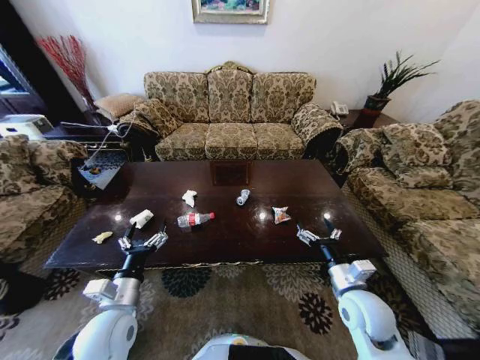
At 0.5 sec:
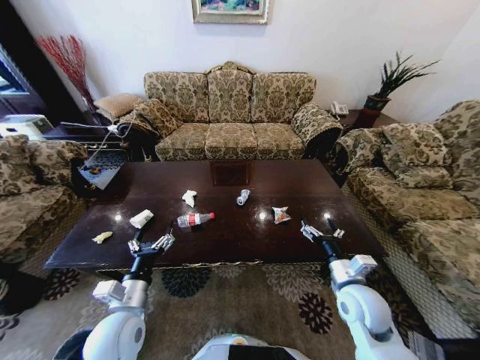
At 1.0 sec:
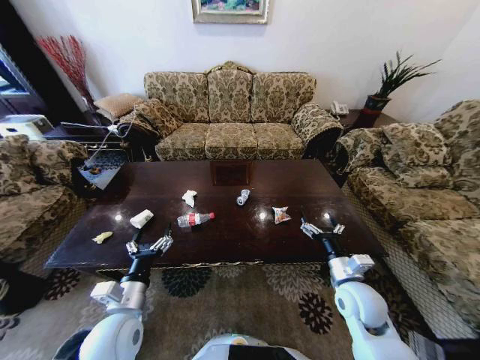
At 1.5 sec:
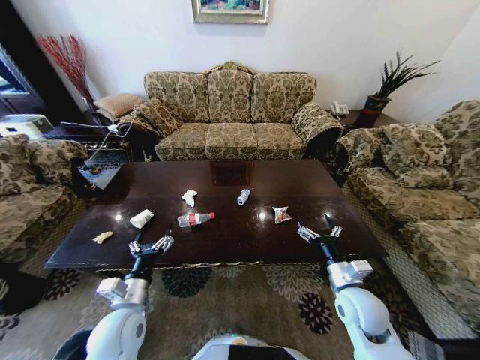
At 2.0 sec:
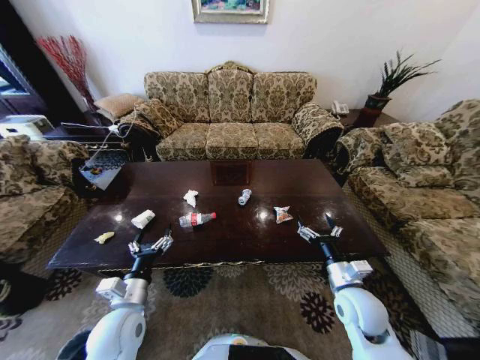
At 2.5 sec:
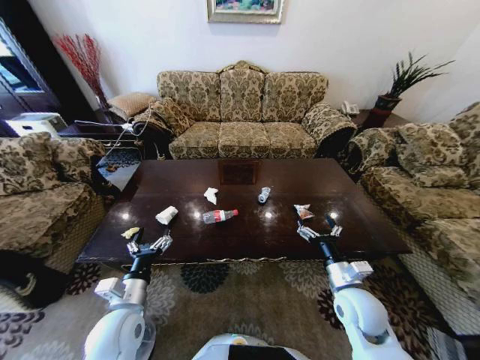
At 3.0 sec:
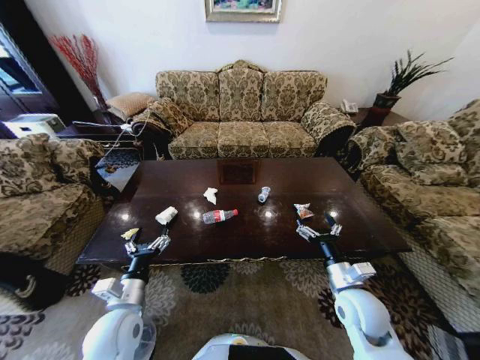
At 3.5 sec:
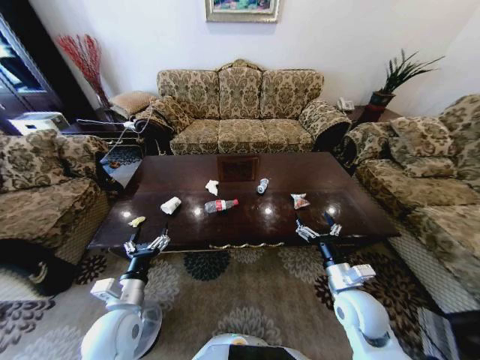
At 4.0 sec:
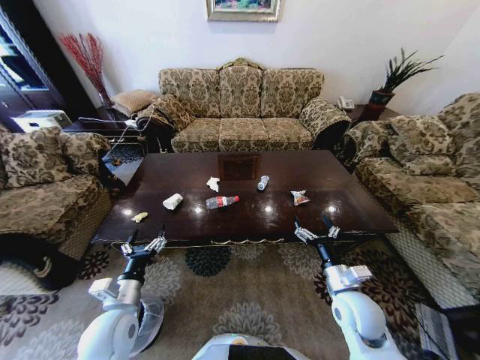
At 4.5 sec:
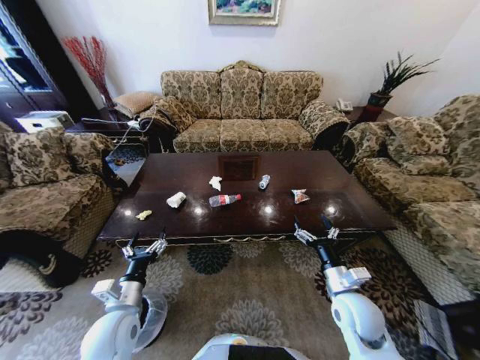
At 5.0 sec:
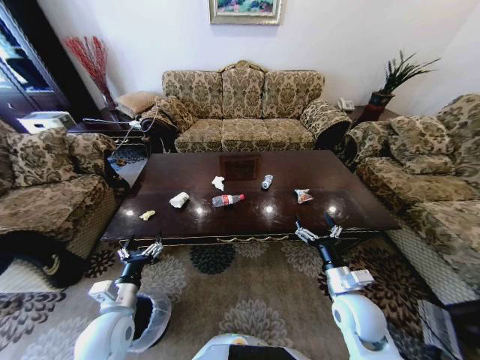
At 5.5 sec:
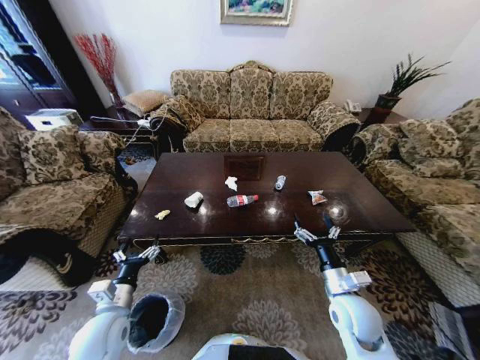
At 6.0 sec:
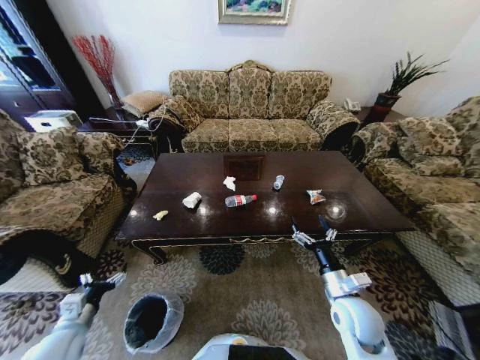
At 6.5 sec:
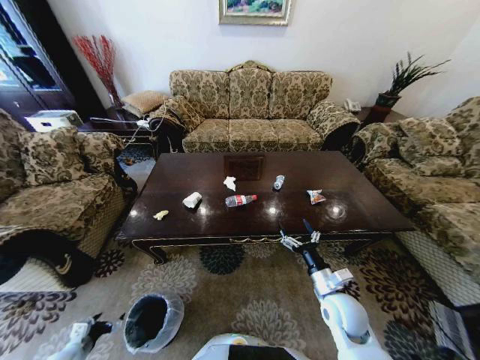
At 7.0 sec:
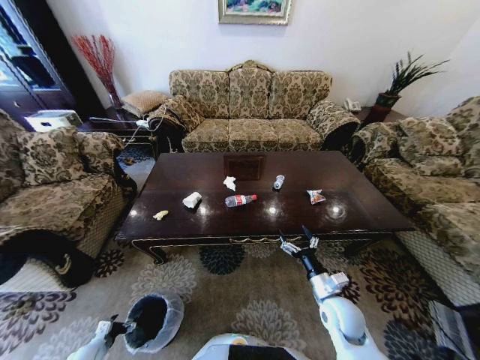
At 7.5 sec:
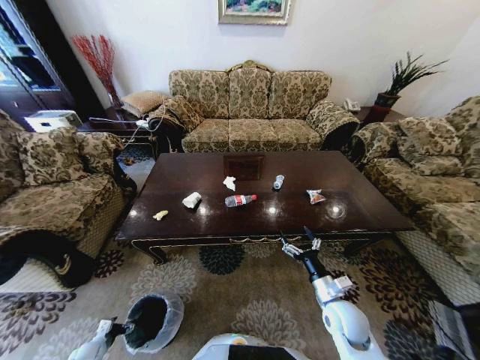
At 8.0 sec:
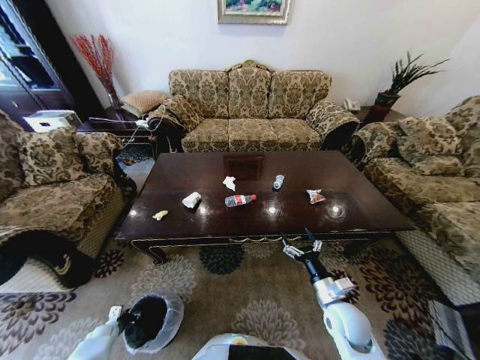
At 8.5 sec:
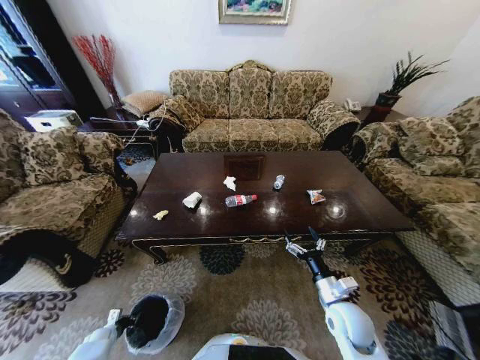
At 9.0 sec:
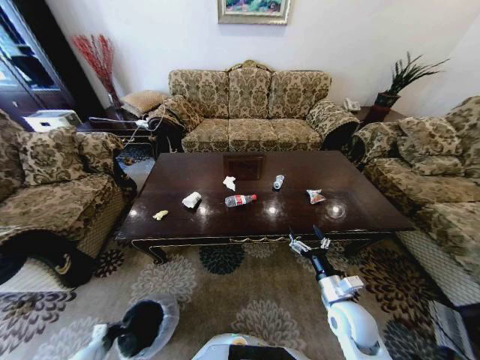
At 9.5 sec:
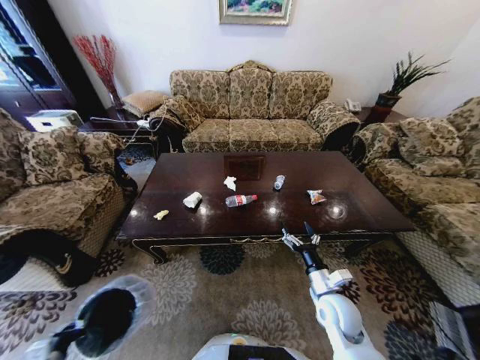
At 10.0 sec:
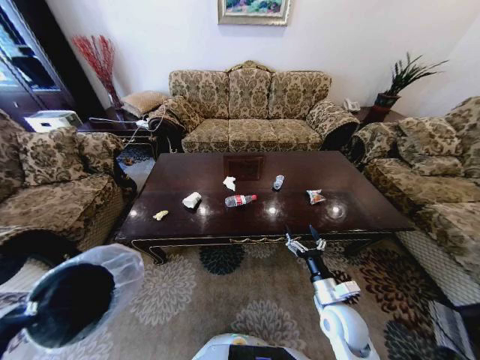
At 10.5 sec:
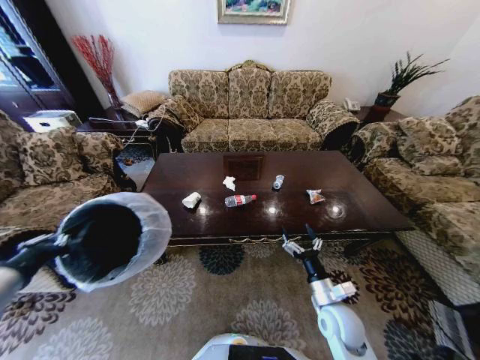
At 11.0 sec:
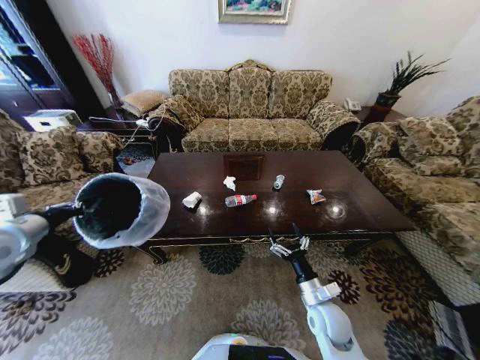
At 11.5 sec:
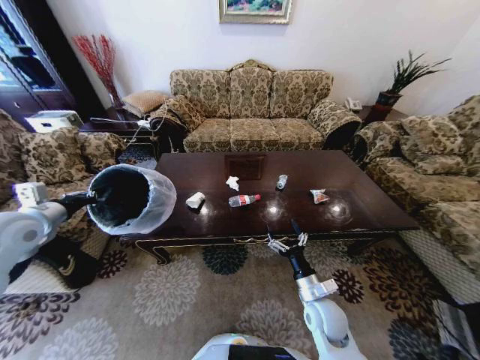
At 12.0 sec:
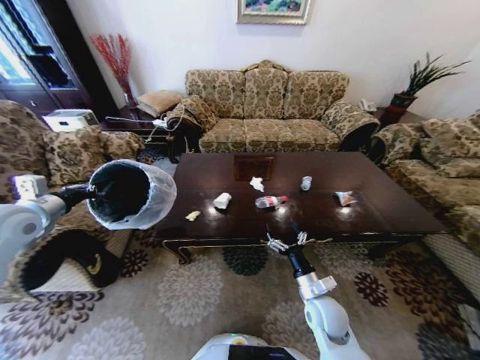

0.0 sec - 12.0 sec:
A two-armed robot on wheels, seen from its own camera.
Task of the whole recording: Move to the front of the table and place the trash on the table into the trash bin.
4.0 sec - 6.0 sec: The left gripper goes about 15 cm to the left and downward.
6.0 sec - 8.0 sec: The left gripper travels downward by some 30 cm, and closes up, while the right gripper is displaced downward by about 5 cm.
8.0 sec - 10.0 sec: The left gripper travels upward by about 40 cm, and closes up.
10.0 sec - 12.0 sec: The left gripper goes approximately 30 cm forward and upward.

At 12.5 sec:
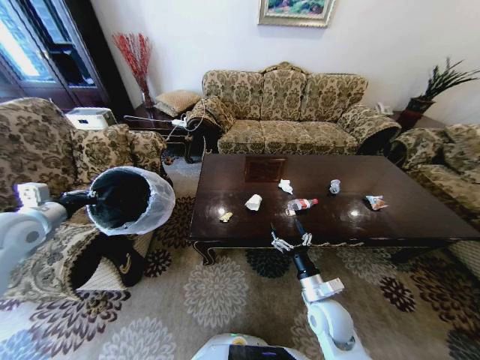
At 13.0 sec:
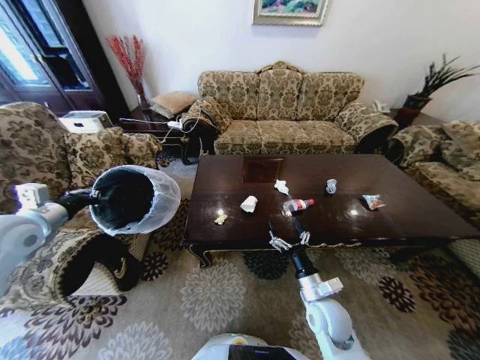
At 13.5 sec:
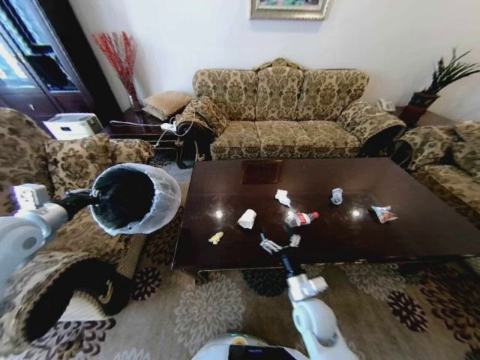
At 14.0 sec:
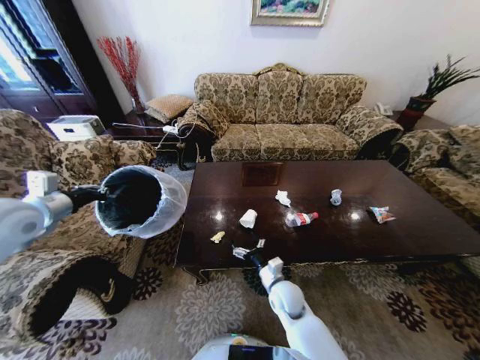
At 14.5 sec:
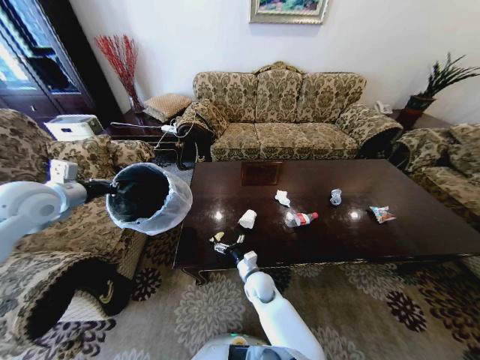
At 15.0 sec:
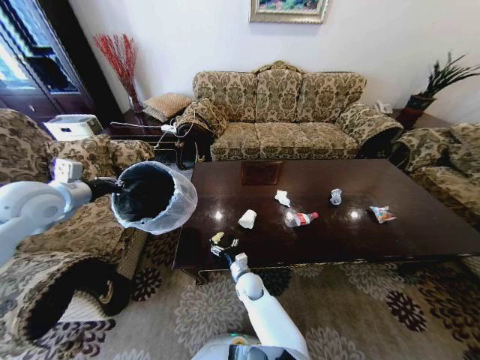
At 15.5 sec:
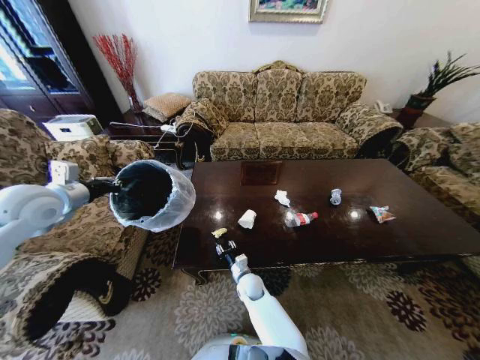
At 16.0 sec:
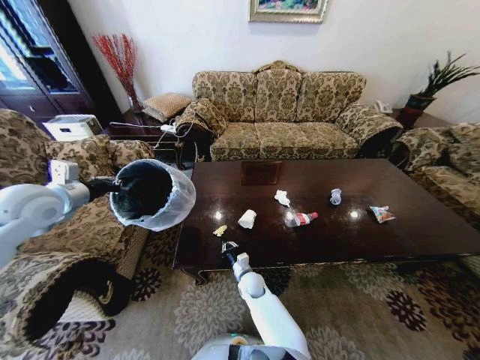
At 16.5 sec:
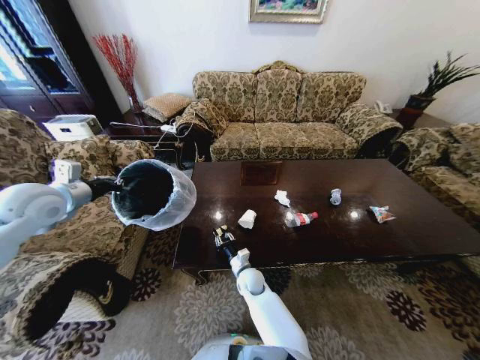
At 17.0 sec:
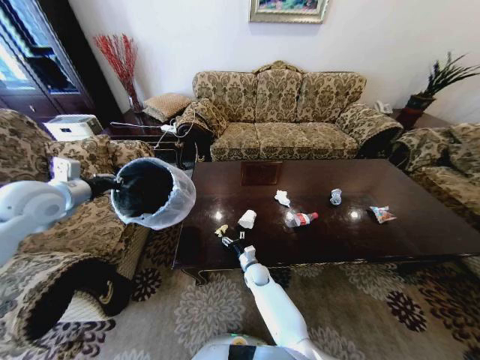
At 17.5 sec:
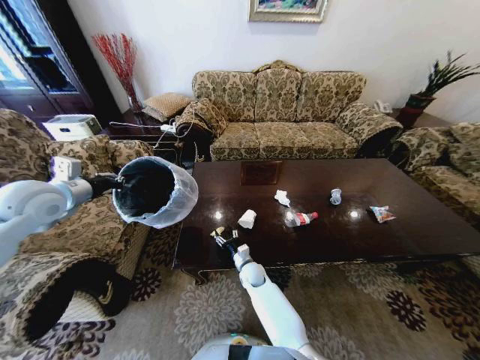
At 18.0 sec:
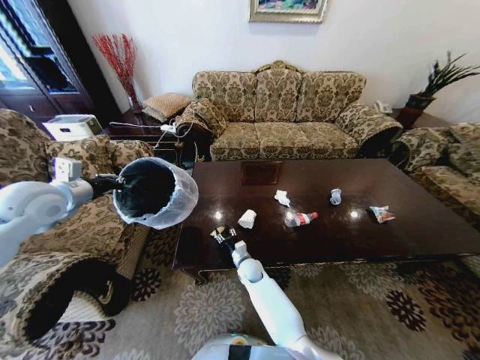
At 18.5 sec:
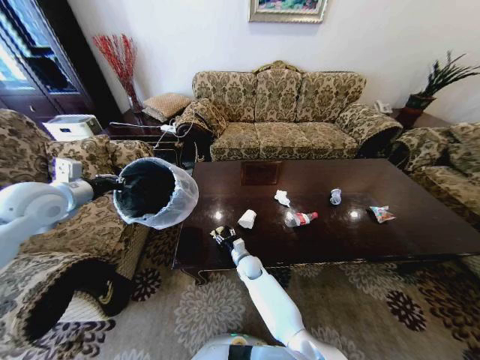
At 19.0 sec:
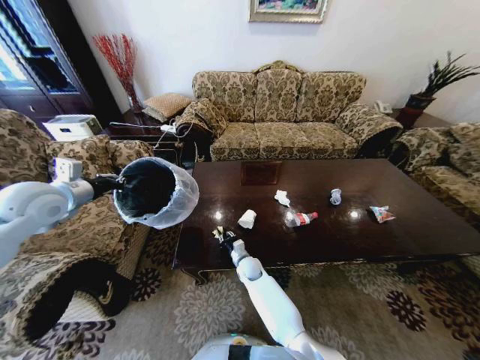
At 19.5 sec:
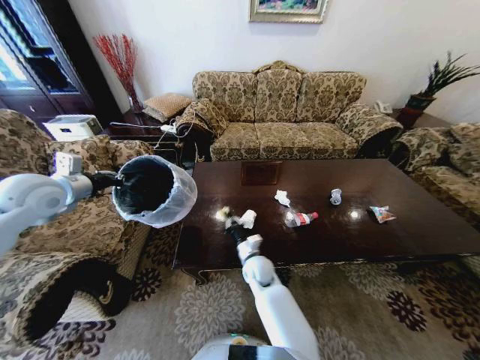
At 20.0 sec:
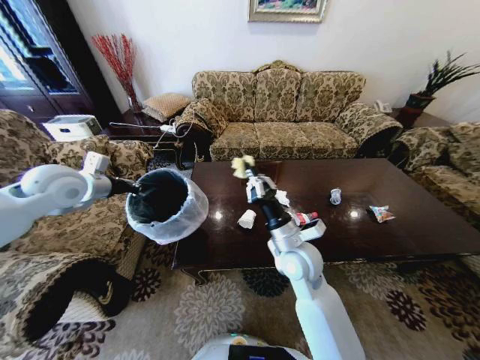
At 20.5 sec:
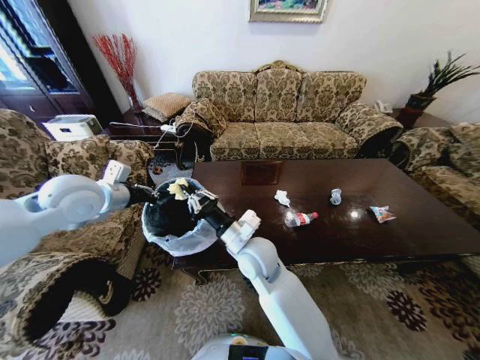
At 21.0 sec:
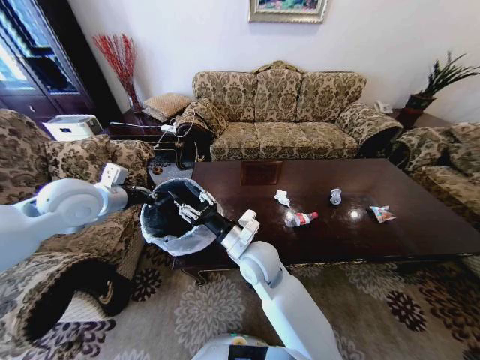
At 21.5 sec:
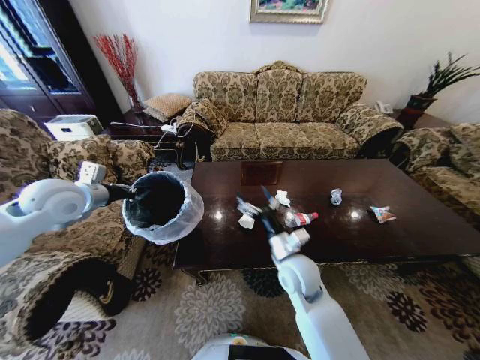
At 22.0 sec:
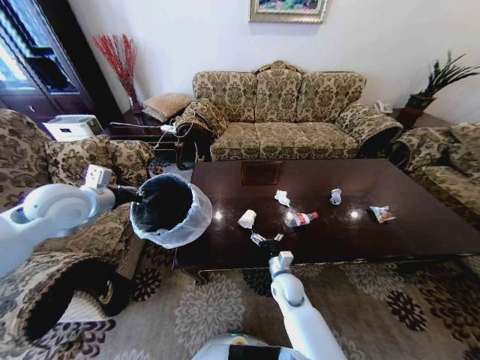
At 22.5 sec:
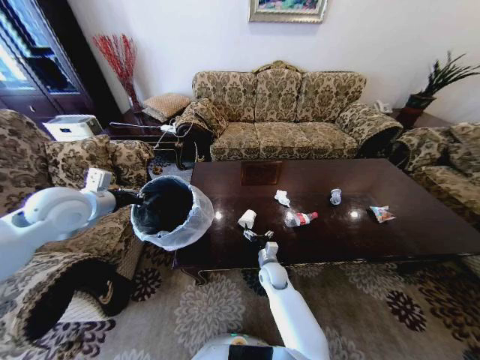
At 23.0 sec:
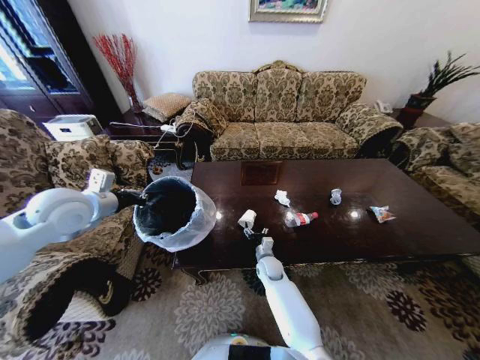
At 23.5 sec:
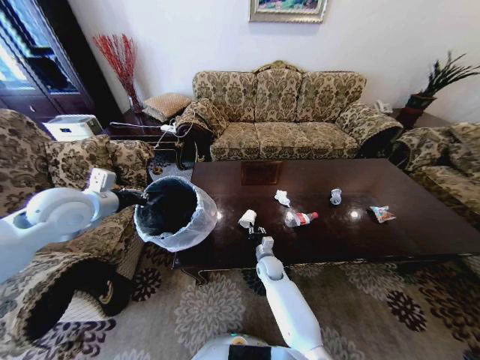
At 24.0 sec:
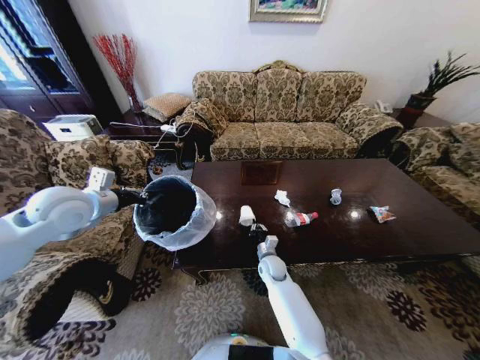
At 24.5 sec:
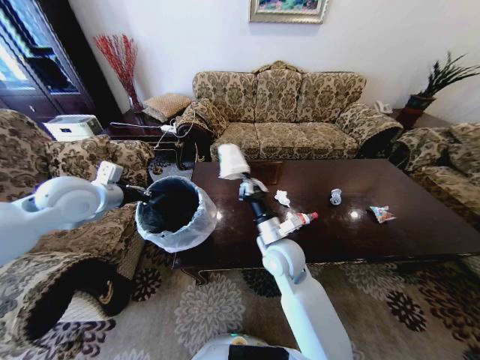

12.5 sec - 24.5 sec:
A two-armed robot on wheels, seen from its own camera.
Task of the whole recording: Move to the front of the table and place the trash on the table into the trash bin.
12.5 sec - 14.5 sec: The right gripper heads to the left, forward and downward, covering roughly 20 cm. The left gripper changes place by approximately 10 cm.
14.5 sec - 16.5 sec: The right gripper closes.
16.5 sec - 18.5 sec: The right gripper moves forward, about 5 cm, and opens.
18.5 sec - 20.5 sec: The left gripper heads to the right, covering some 10 cm, while the right gripper shifts about 25 cm upward, and closes.
20.5 sec - 22.5 sec: The right gripper travels downward by roughly 25 cm, and opens its fingers.
22.5 sec - 24.5 sec: The right gripper is displaced upward by some 25 cm, and closes.

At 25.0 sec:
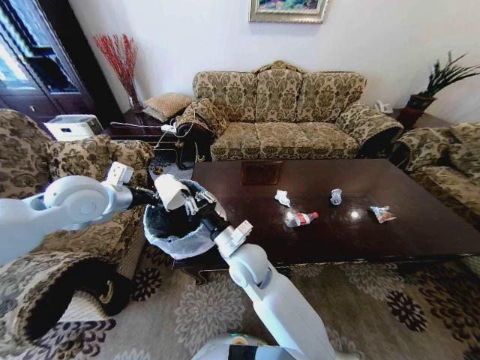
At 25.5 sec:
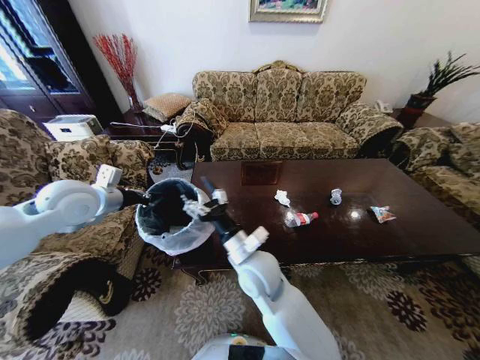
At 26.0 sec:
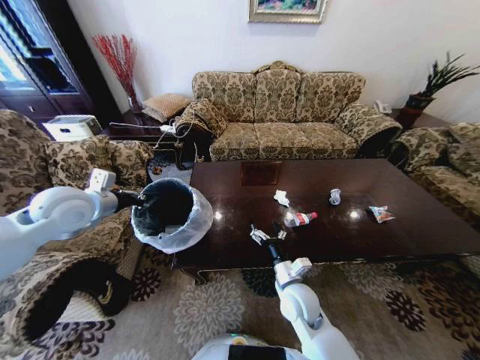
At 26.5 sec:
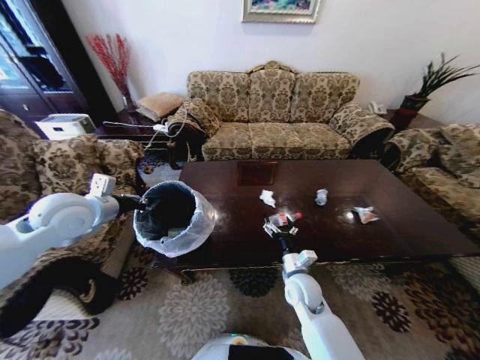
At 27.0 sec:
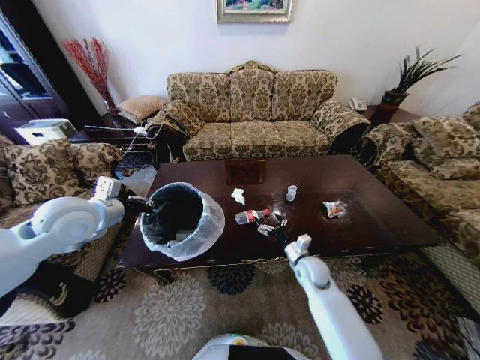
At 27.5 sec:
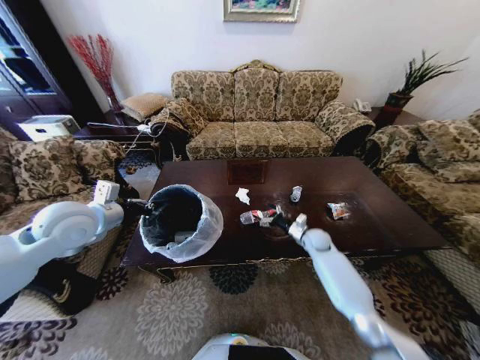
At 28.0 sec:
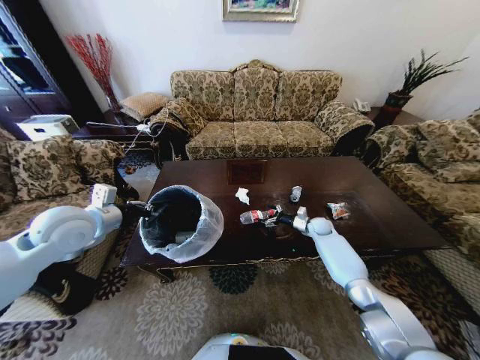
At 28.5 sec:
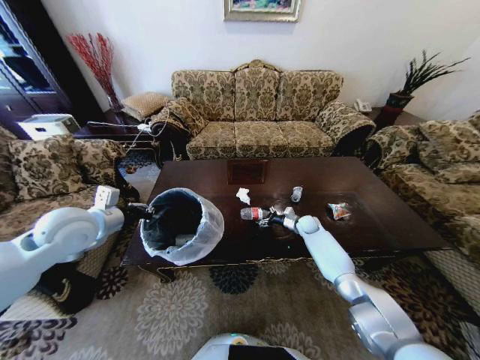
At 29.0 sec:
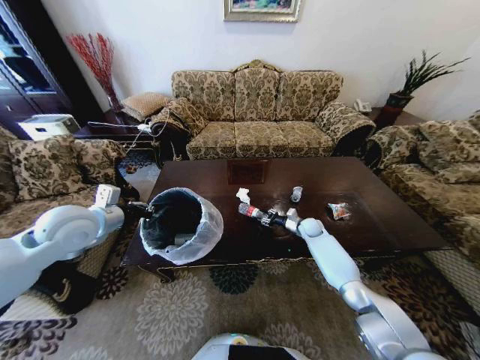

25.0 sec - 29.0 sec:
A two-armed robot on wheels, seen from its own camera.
Task of the whole recording: Move to the front of the table and place the trash on the table into the trash bin.
25.0 sec - 27.0 sec: The right gripper is displaced to the right and downward by about 25 cm, and opens its fingers.
27.0 sec - 29.0 sec: The right gripper travels forward by about 20 cm, and closes its fingers.
